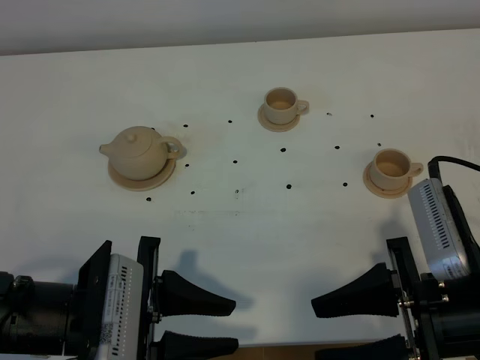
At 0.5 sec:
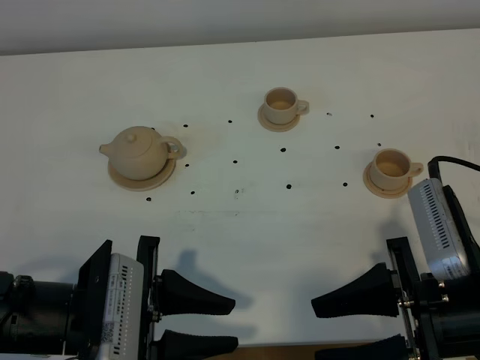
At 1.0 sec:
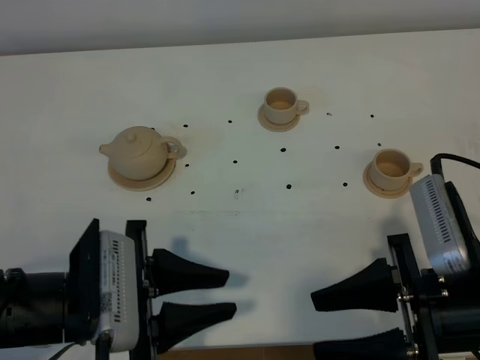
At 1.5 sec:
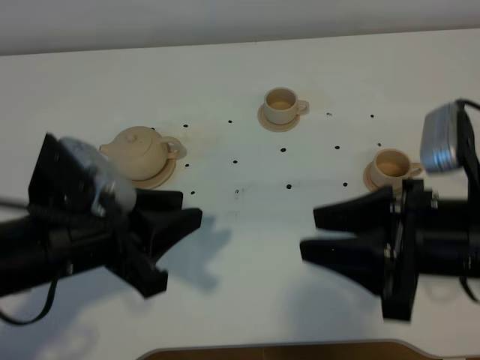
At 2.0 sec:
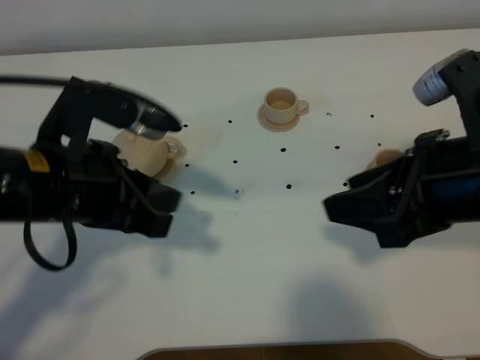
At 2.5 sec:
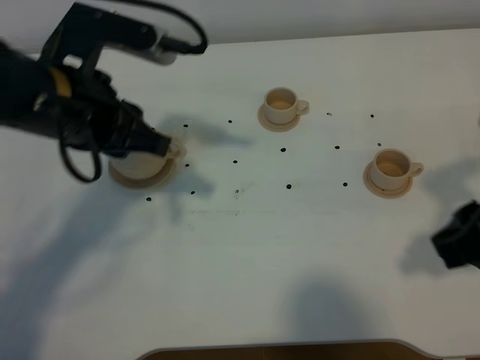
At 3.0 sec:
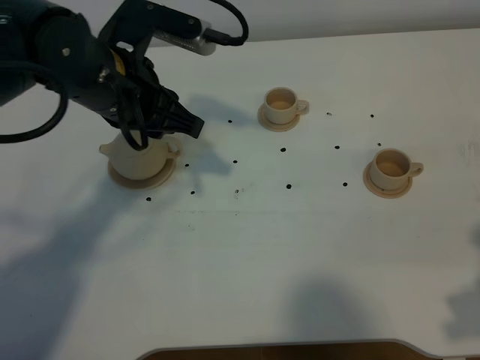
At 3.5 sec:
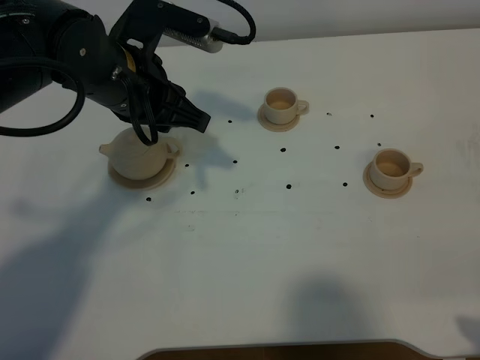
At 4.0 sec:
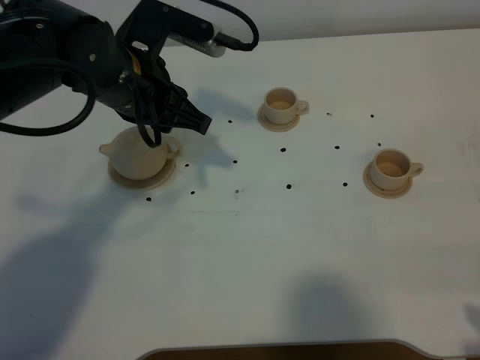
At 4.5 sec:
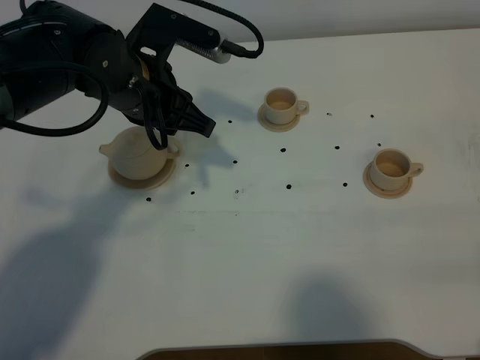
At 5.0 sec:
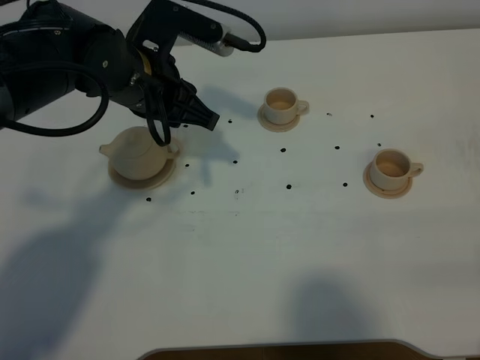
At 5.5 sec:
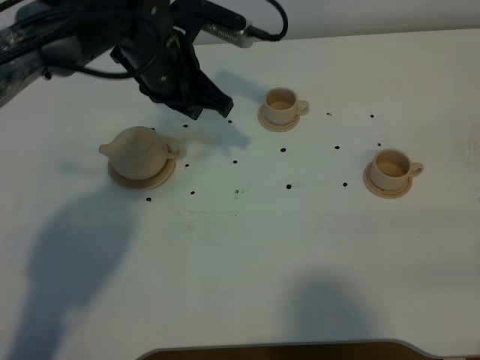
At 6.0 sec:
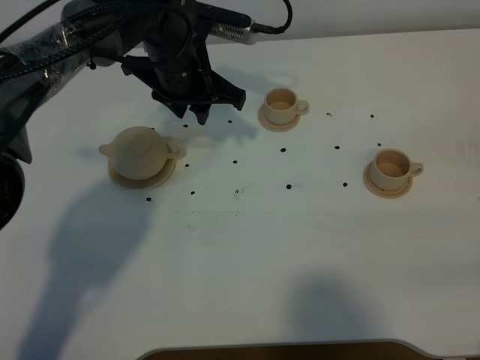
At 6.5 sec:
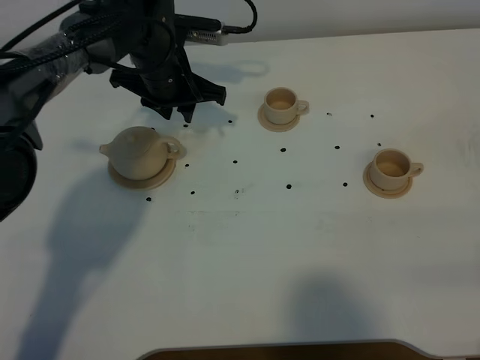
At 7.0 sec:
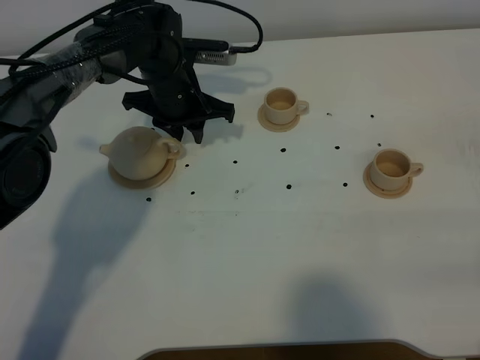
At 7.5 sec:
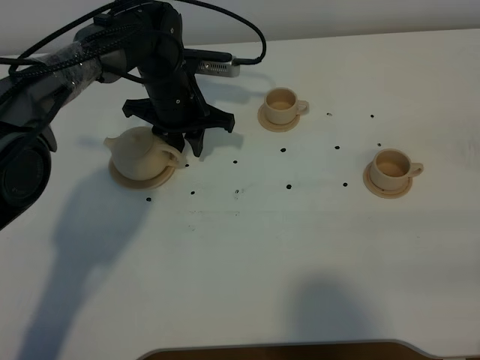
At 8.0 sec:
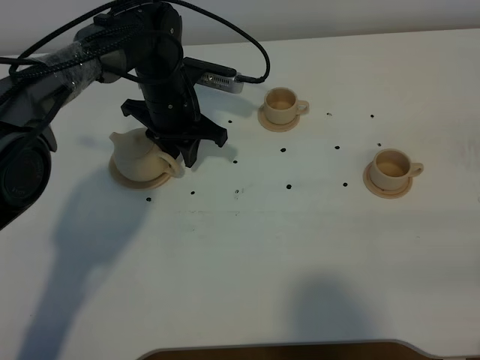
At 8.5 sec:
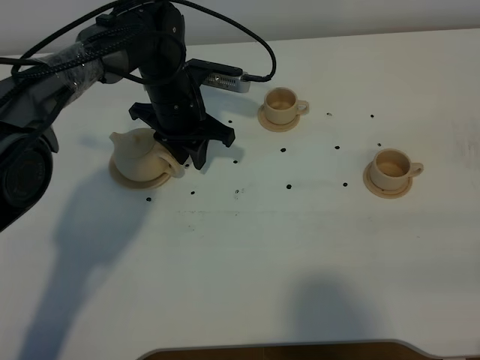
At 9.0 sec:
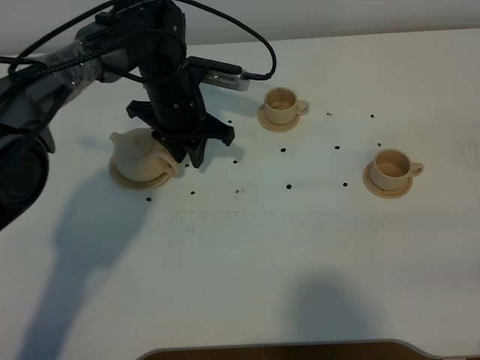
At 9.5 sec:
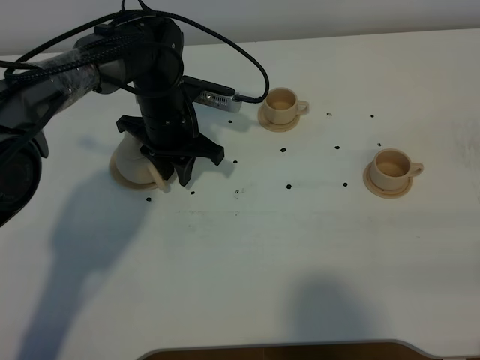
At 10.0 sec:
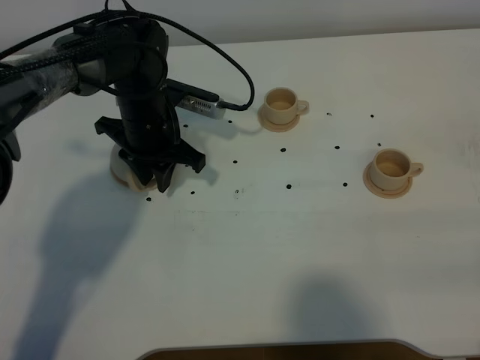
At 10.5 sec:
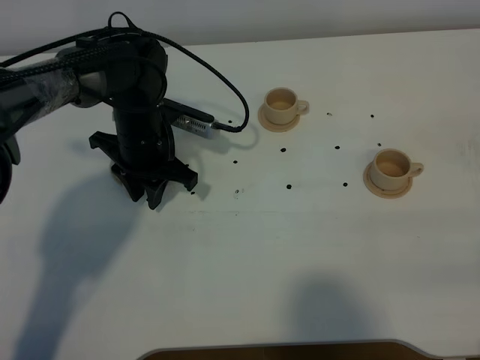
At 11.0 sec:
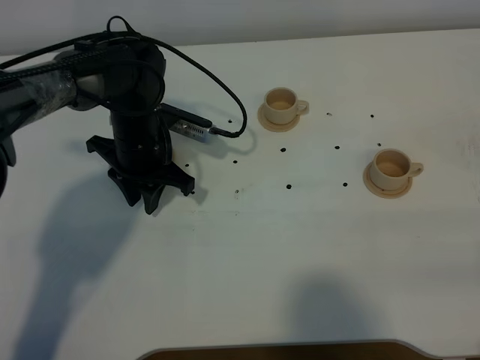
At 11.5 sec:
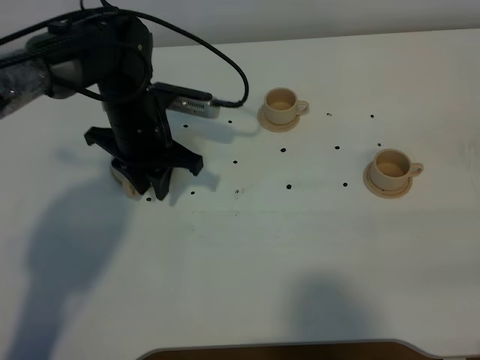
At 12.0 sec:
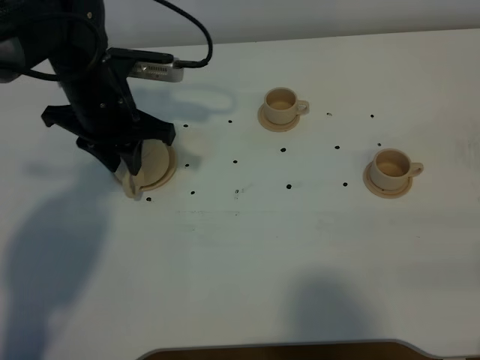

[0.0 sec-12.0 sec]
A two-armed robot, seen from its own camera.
Task of the whole recording: grasp the brown teapot and pour the tea into the two brown teacups one by one, put the brown teapot back in its original place.
0.0 sec to 2.0 sec: Both grippers travel together upward and forward, approximately 10 cm.
2.0 sec to 4.0 sec: The left gripper moves forward, approximately 15 cm, while the right gripper shifts approximately 15 cm backward and to the right.
4.0 sec to 6.0 sec: The left gripper heads forward, covering some 10 cm.
6.0 sec to 8.0 sec: The left gripper shifts about 5 cm downward.
8.0 sec to 10.0 sec: The grippers move only a little.
10.0 sec to 12.0 sec: The left gripper travels upward by about 5 cm.

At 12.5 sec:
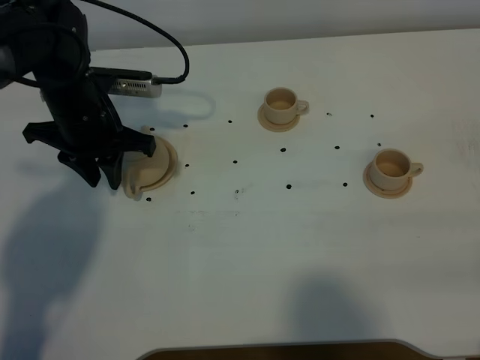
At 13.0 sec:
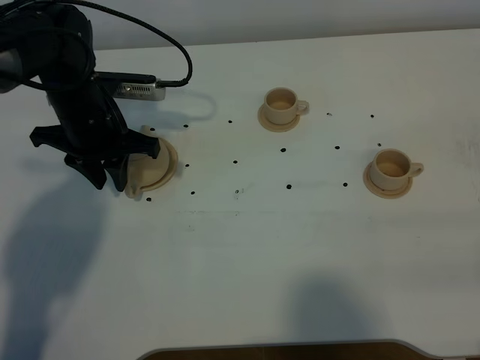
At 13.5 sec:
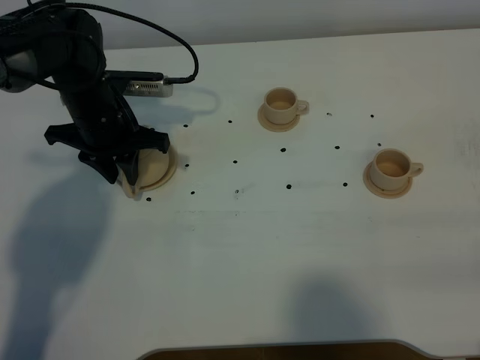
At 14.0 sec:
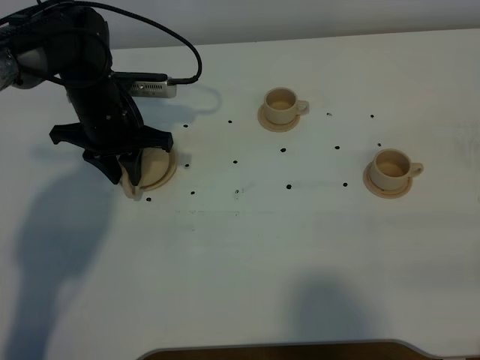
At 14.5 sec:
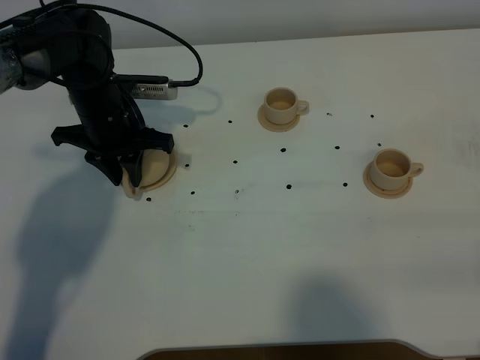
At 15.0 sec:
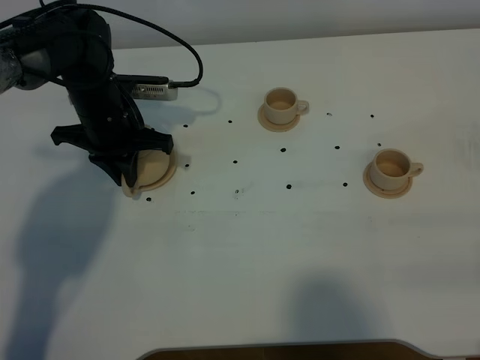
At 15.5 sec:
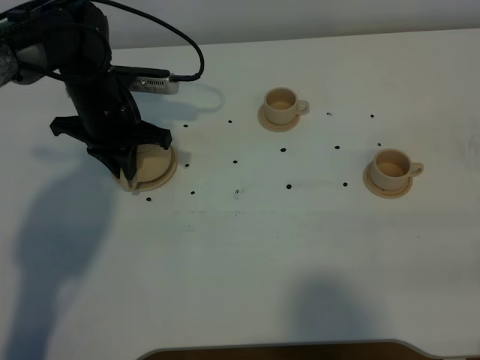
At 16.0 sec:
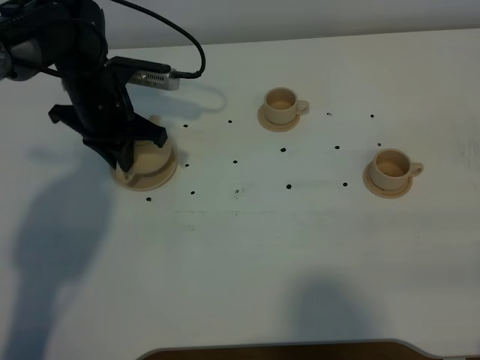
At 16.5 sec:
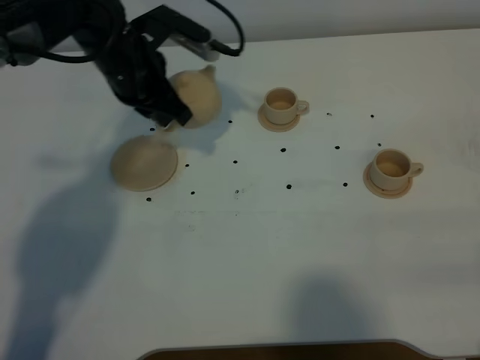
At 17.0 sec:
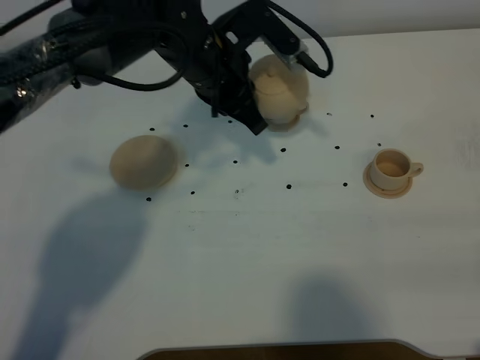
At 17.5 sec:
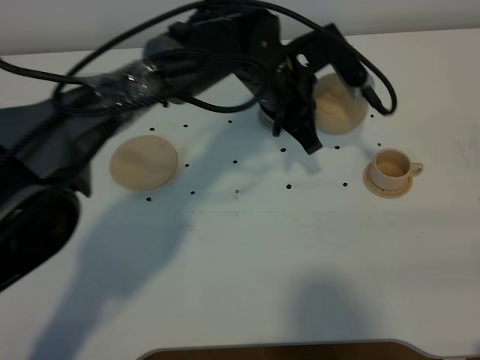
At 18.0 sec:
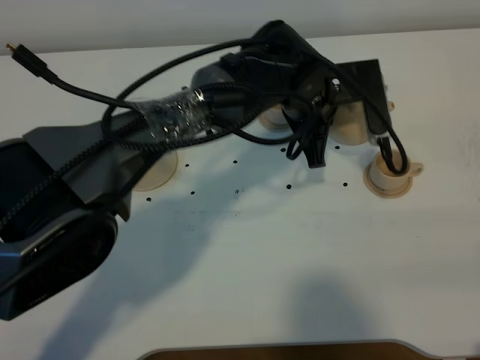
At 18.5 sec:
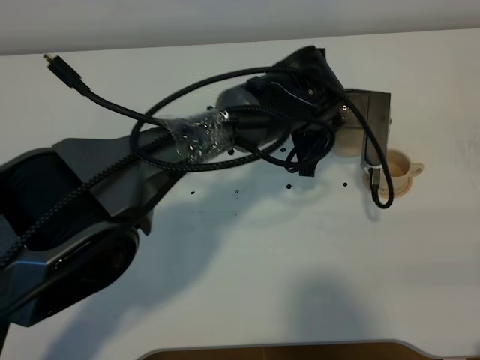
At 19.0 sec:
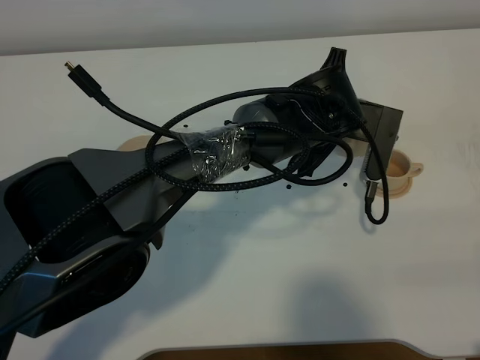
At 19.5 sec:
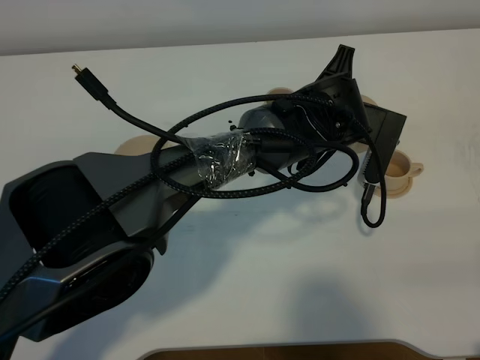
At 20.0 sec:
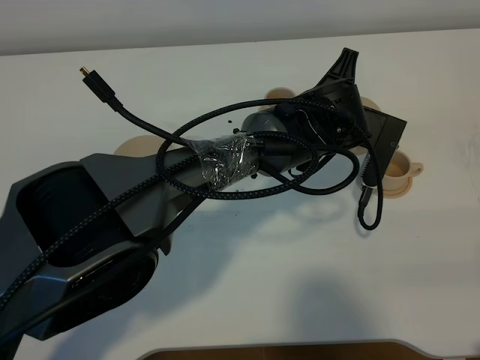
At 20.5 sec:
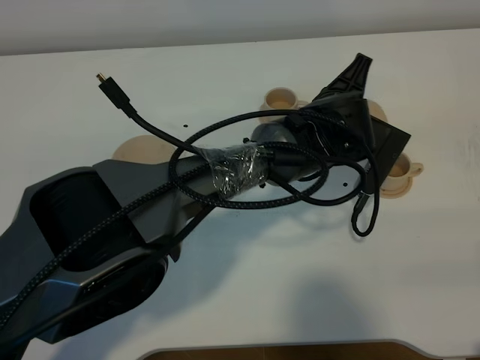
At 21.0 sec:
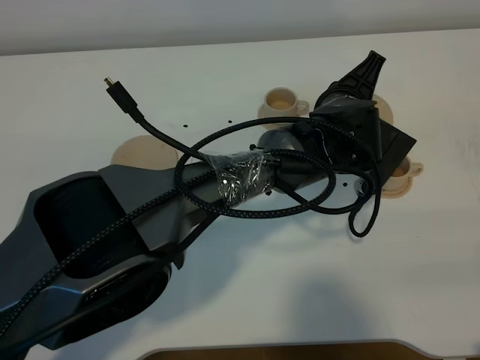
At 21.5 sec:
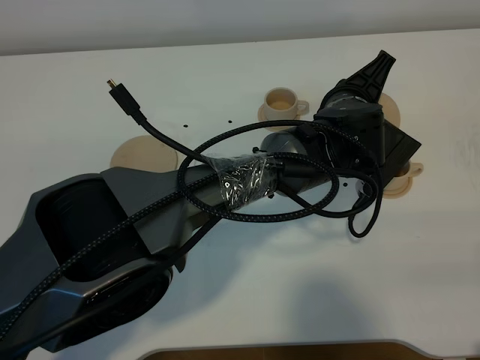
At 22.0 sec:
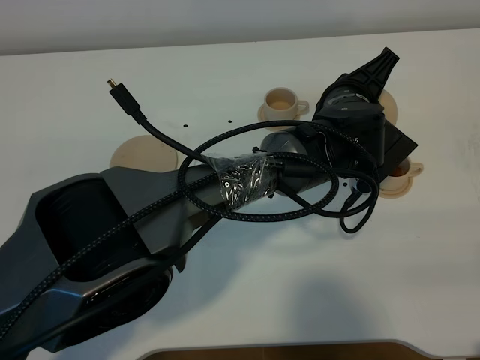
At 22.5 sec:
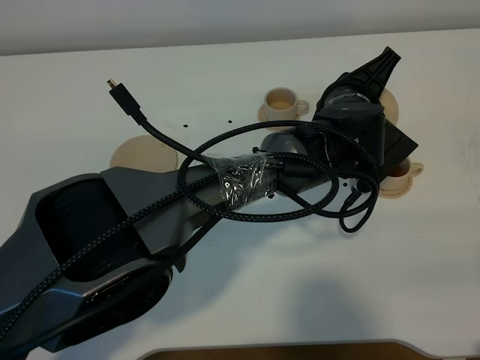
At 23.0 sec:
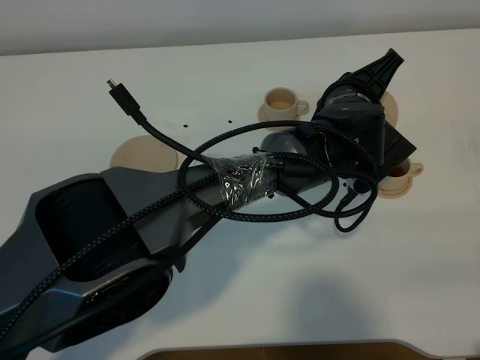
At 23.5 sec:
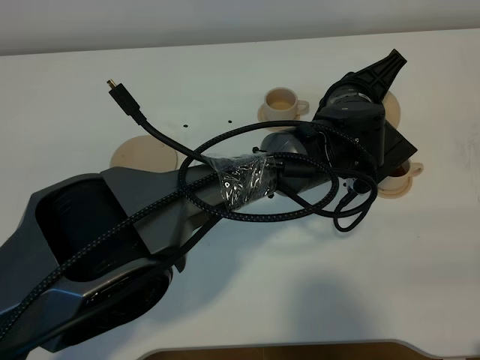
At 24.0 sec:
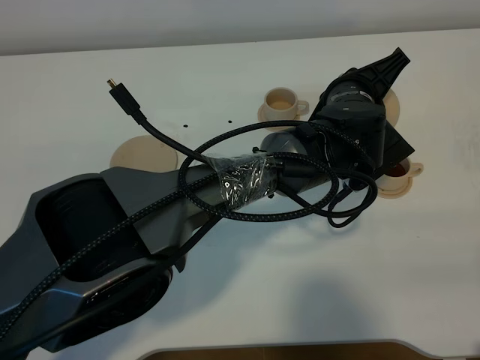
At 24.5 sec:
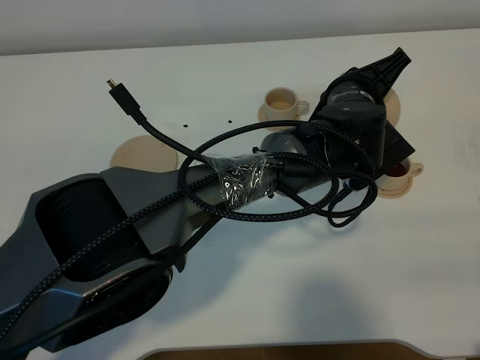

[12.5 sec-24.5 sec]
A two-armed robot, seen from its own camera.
Task of the whole recording: grasp the brown teapot and pour the tea into the two brown teacups one by one, put the brown teapot back in its original place.
Step, 12.5 sec to 15.5 sec: Pick up the teapot with the left gripper.
12.5 sec to 14.5 sec: The grippers stay close to where they were, moving slightly.
14.5 sec to 16.5 sec: The left gripper is displaced upward and to the right by roughly 10 cm, and closes its fingers.
16.5 sec to 18.5 sec: The left gripper moves to the right, about 20 cm.
20.5 sec to 22.5 sec: The grippers make only small movements.
22.5 sec to 24.5 sec: The grippers move only a little.

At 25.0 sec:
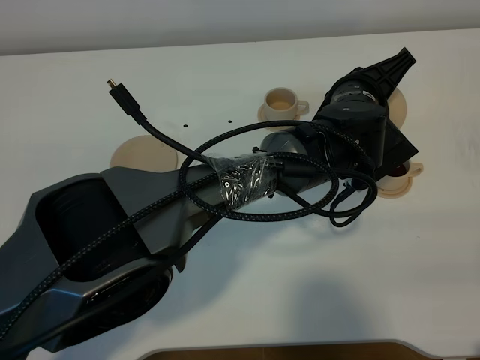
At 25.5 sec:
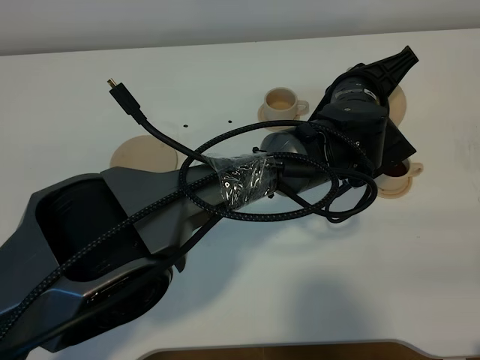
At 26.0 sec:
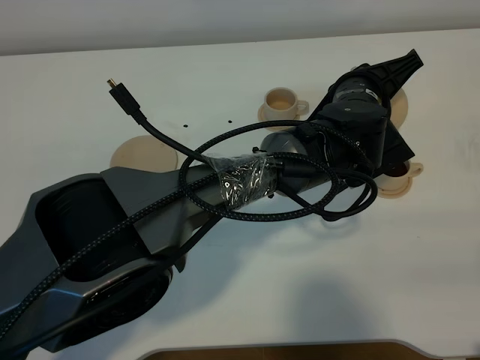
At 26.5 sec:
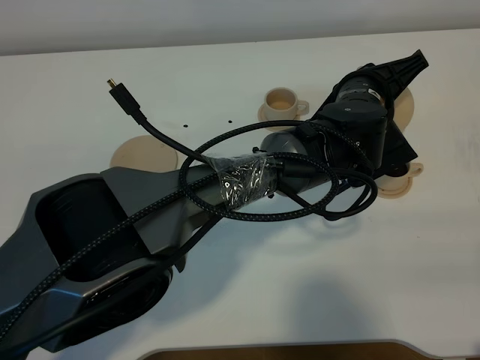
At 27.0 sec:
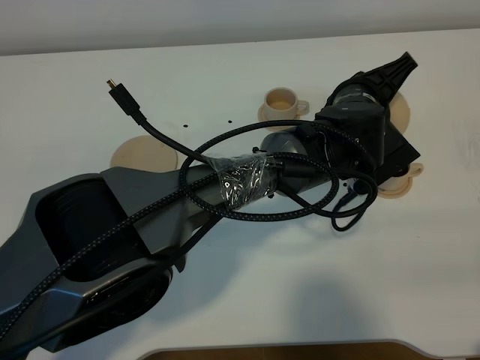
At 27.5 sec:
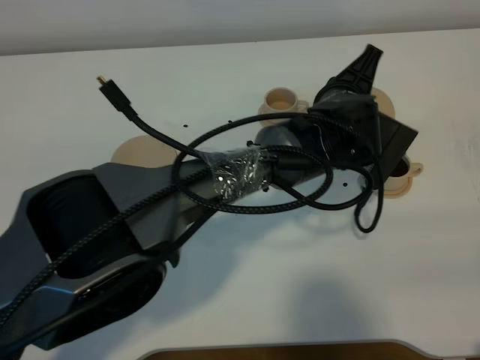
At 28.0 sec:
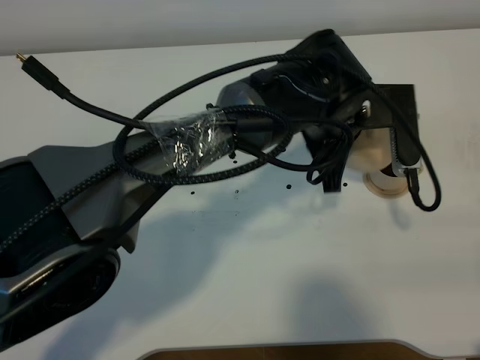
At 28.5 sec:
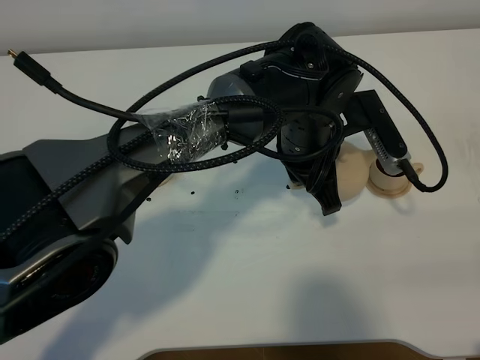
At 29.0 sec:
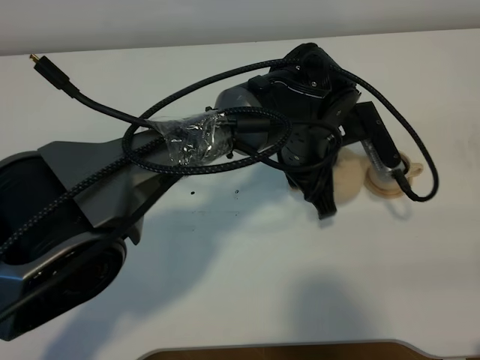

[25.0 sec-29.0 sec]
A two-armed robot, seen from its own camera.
Task of the whole recording: grasp the brown teapot and pour the tea into the two brown teacups one by one, put the brown teapot back in its original place.
25.0 sec to 27.0 sec: The grippers move only a little.
27.0 sec to 29.0 sec: The left gripper heads to the left, covering approximately 5 cm.
